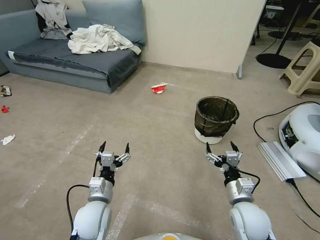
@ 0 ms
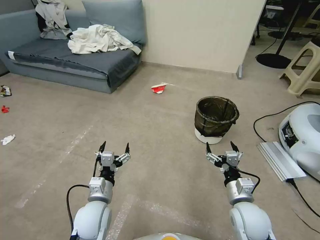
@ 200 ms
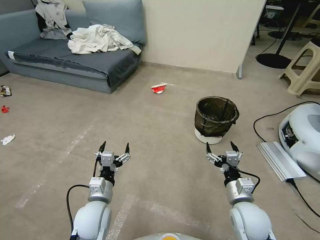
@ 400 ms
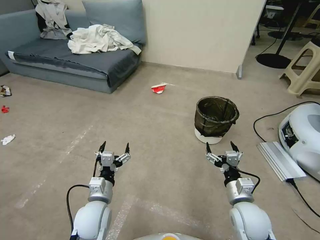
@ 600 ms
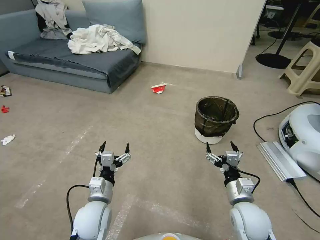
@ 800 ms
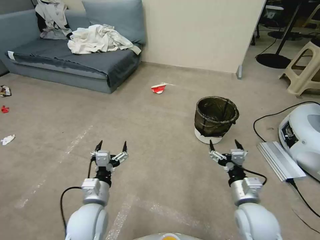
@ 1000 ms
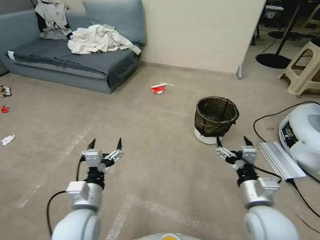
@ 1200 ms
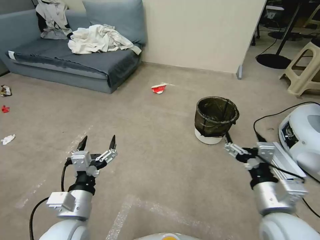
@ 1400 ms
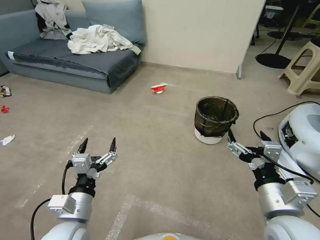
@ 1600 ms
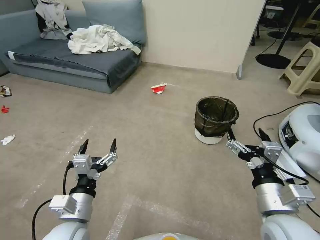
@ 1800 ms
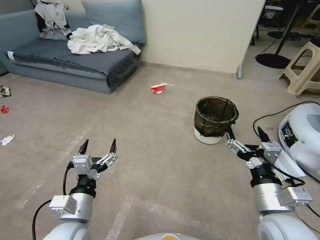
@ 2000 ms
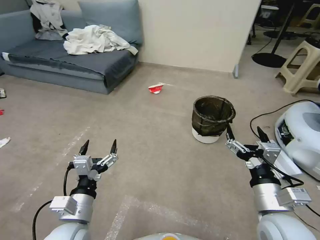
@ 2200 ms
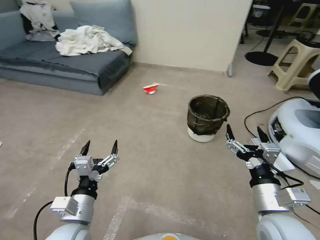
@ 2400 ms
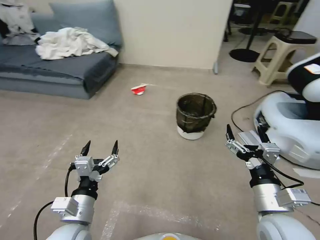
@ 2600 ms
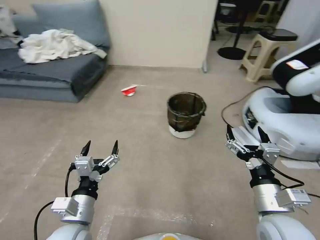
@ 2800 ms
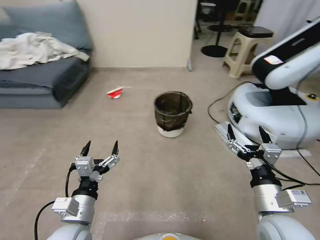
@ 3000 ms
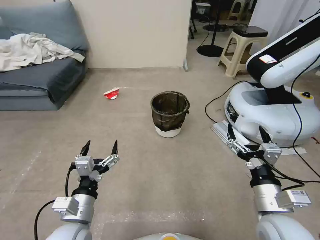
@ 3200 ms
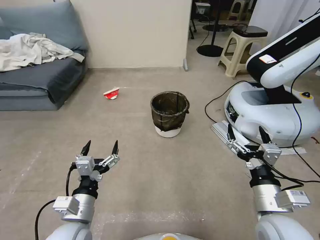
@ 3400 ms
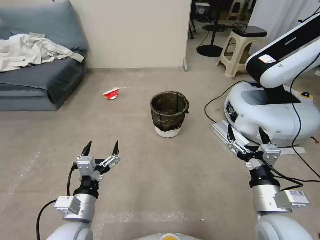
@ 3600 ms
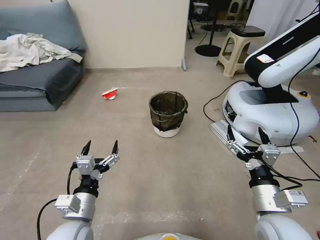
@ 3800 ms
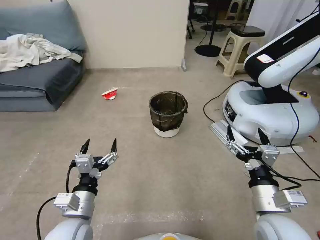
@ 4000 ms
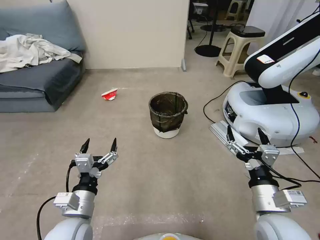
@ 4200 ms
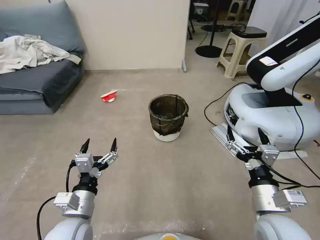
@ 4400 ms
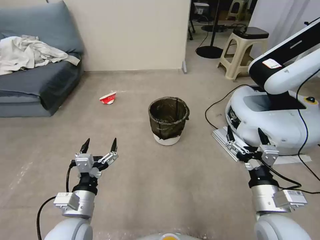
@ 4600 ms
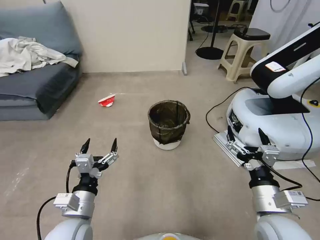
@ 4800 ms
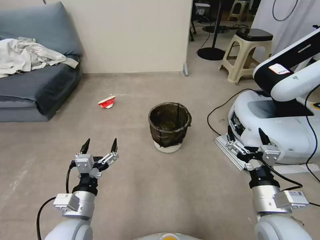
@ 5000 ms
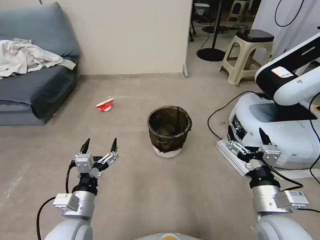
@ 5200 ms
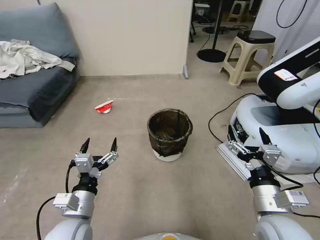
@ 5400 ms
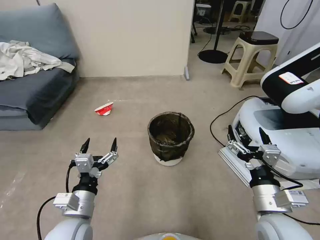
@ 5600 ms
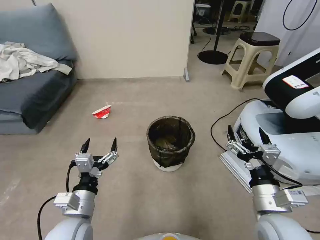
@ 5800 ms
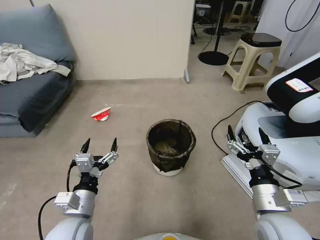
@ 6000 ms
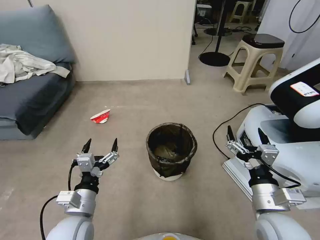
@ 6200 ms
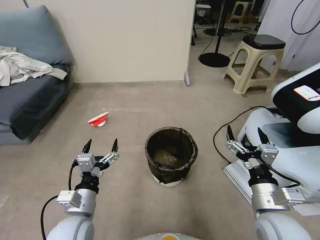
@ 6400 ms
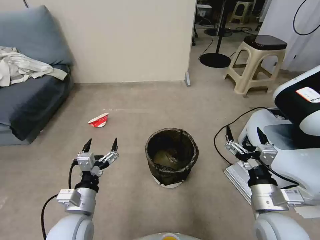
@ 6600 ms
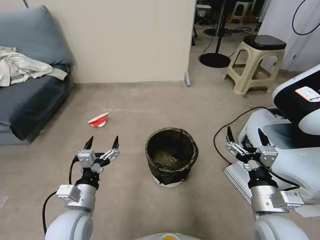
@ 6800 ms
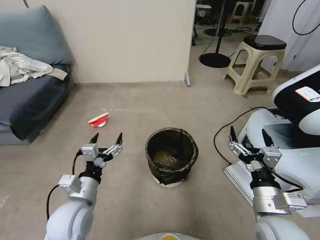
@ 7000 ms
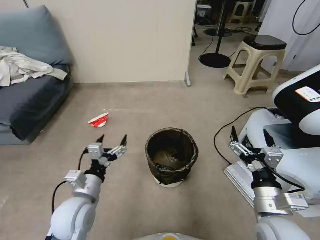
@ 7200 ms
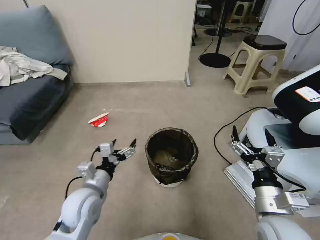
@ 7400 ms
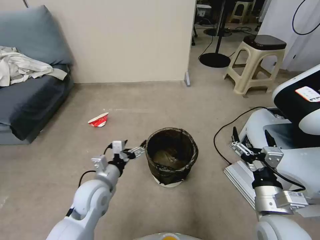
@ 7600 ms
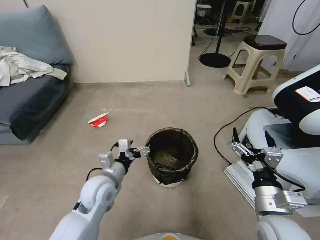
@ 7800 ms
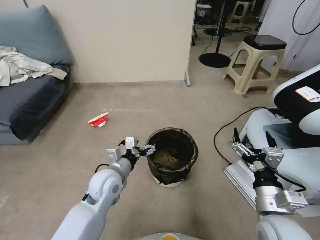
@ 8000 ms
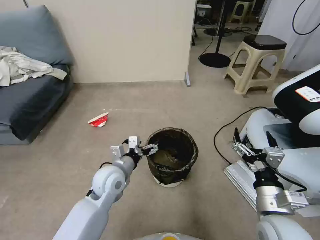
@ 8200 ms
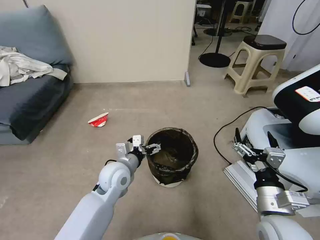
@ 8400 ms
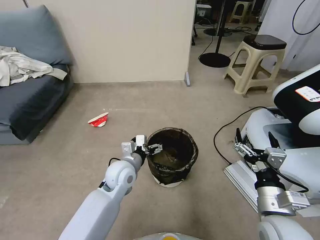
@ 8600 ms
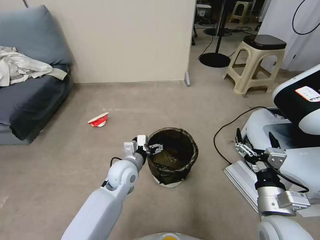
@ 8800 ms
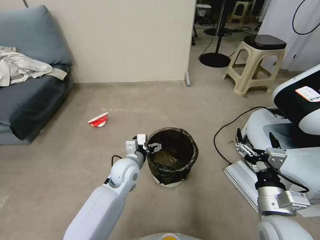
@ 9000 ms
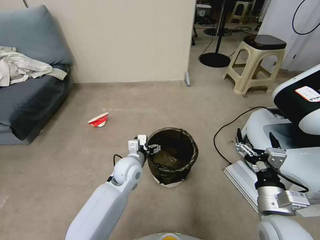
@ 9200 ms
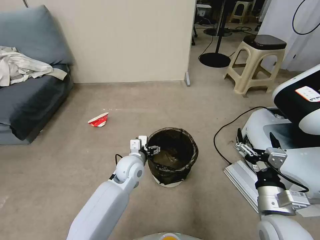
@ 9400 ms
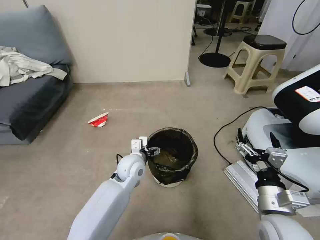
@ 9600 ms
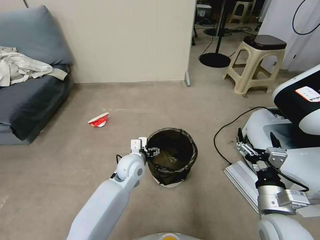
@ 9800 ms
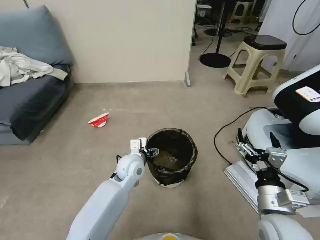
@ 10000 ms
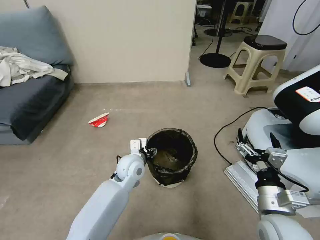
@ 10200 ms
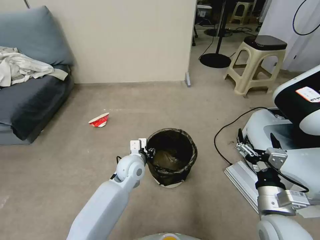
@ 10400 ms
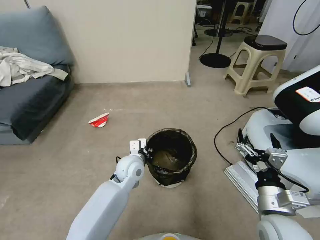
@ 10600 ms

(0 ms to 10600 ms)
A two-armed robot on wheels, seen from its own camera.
Task of the whole recording: Pick up the trash can from the floor.
6000 ms - 7600 ms: The left gripper goes some 10 cm forward.
7600 ms - 9000 ms: The left gripper shifts about 10 cm forward and to the right.
9000 ms - 10600 ms: The left gripper closes.

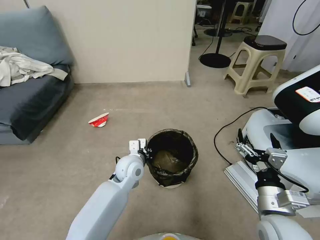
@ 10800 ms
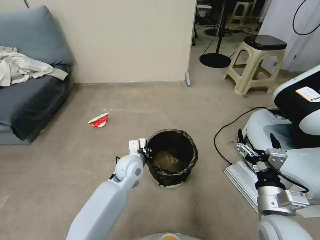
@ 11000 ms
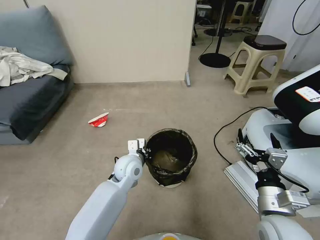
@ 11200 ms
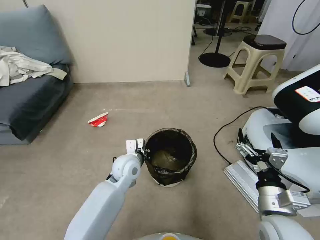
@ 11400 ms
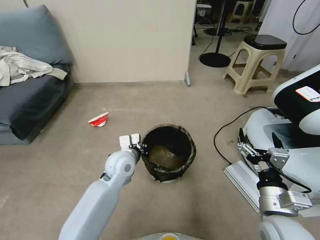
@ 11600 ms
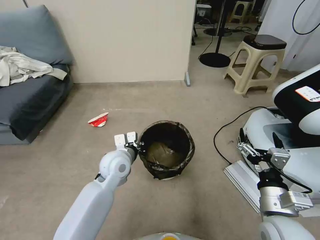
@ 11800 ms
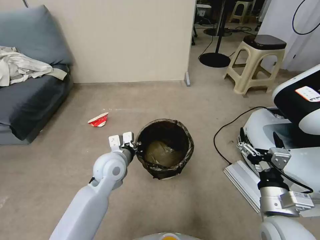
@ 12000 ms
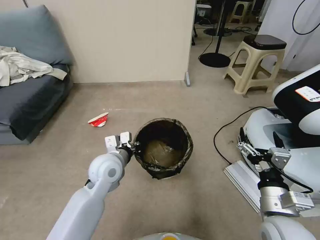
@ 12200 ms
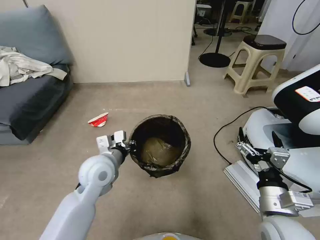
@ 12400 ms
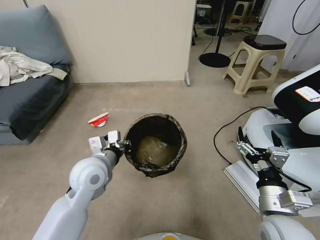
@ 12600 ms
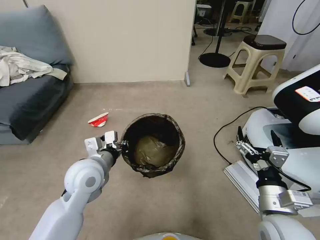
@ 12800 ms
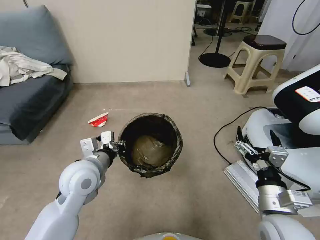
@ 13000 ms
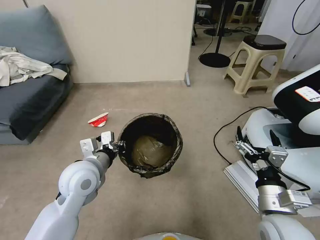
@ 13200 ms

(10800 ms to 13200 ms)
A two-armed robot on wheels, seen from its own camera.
Task of the whole recording: Pick up the trash can from the floor.
10800 ms - 12000 ms: The left gripper travels upward by roughly 5 cm.
12000 ms - 13200 ms: The left gripper is displaced backward and to the left by approximately 10 cm.
